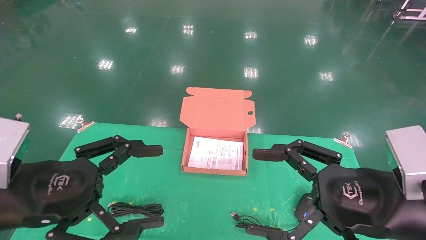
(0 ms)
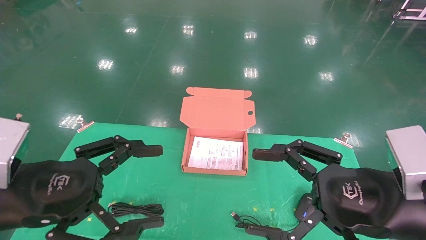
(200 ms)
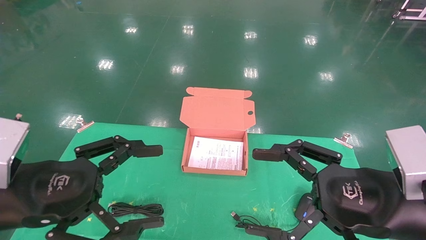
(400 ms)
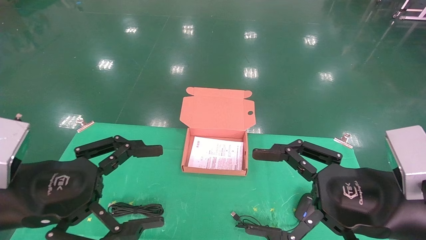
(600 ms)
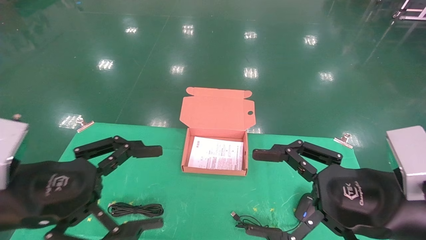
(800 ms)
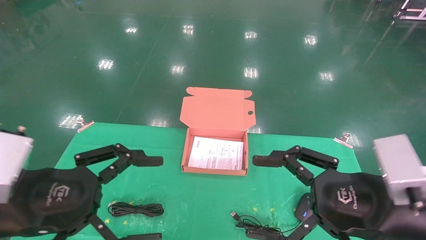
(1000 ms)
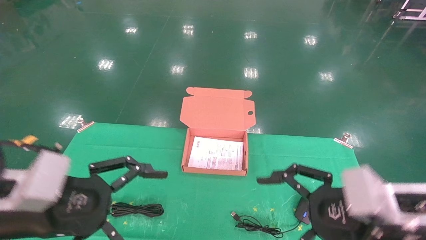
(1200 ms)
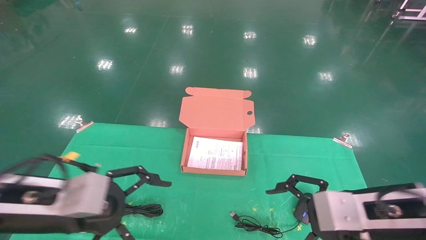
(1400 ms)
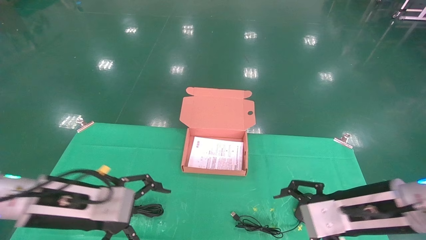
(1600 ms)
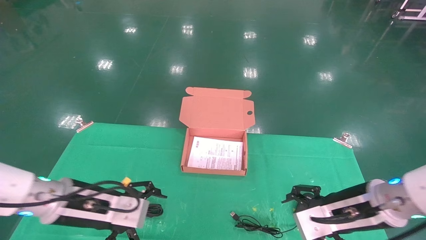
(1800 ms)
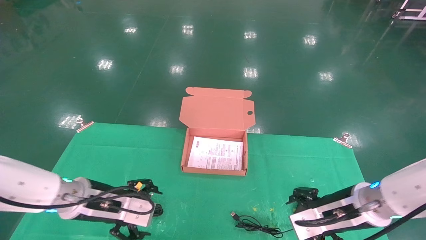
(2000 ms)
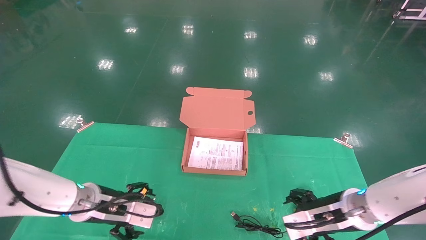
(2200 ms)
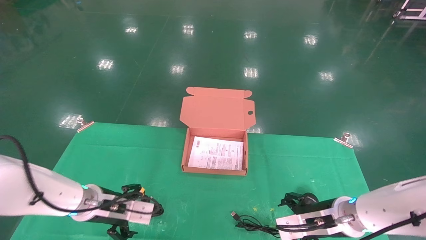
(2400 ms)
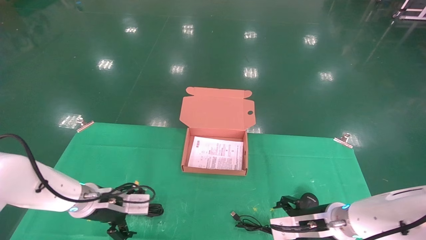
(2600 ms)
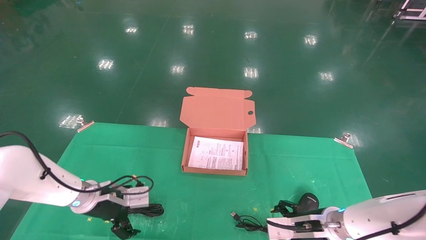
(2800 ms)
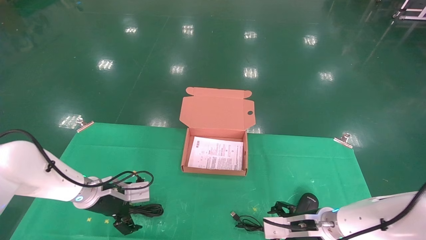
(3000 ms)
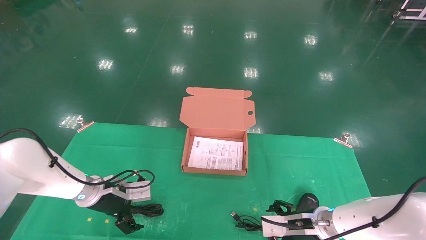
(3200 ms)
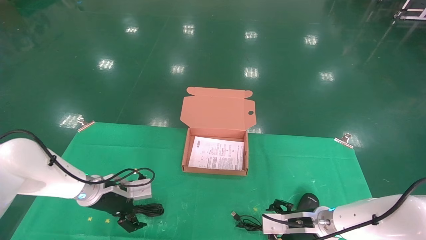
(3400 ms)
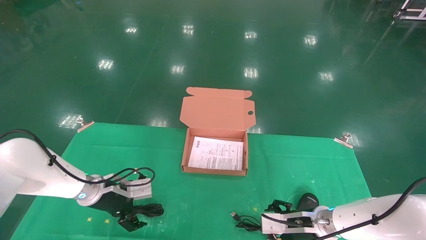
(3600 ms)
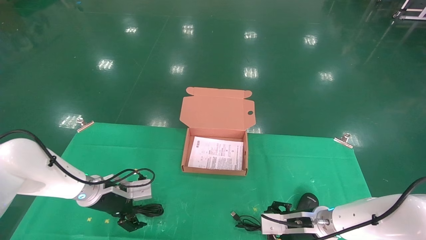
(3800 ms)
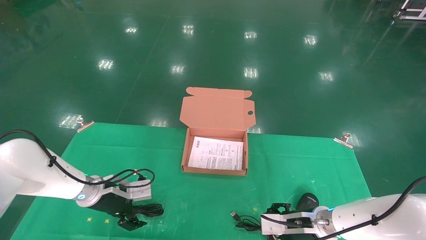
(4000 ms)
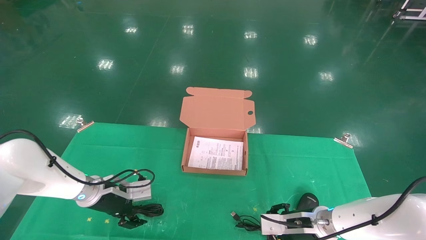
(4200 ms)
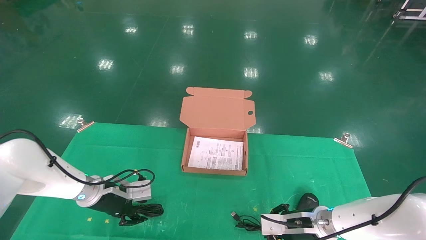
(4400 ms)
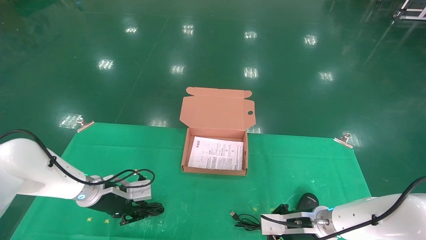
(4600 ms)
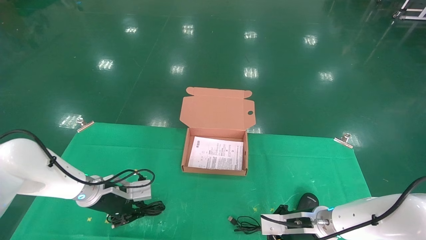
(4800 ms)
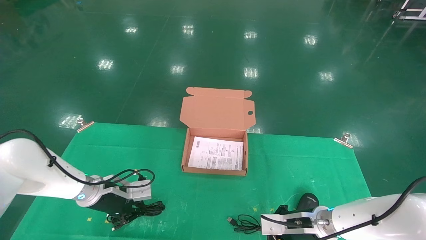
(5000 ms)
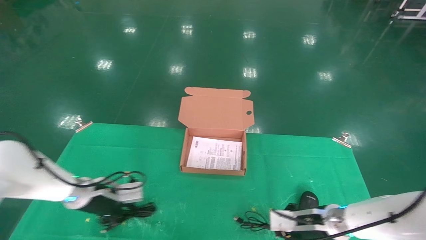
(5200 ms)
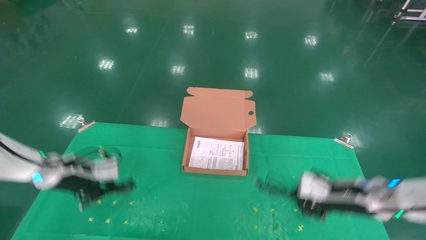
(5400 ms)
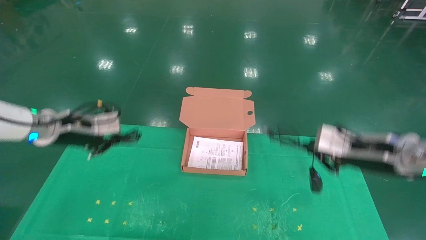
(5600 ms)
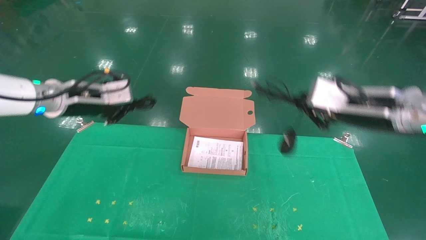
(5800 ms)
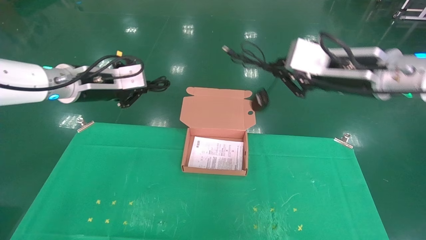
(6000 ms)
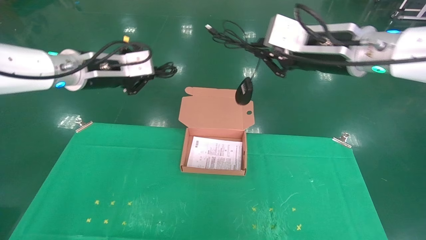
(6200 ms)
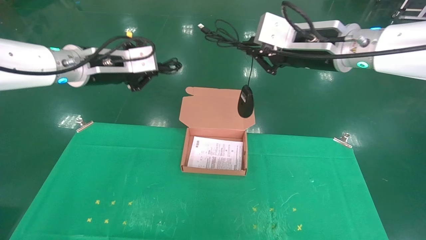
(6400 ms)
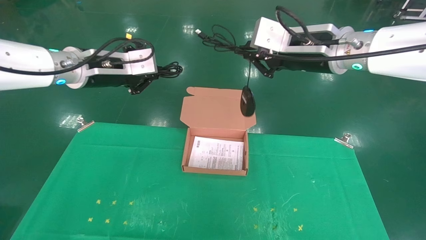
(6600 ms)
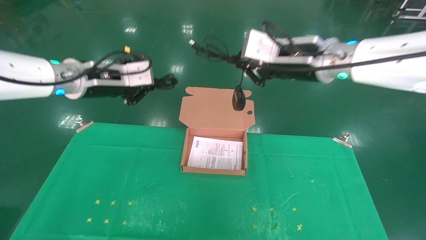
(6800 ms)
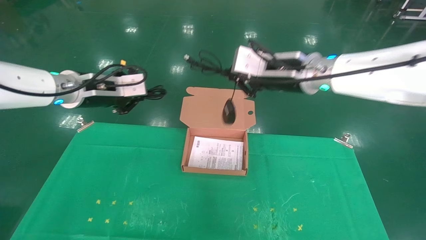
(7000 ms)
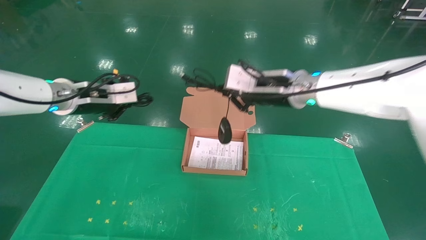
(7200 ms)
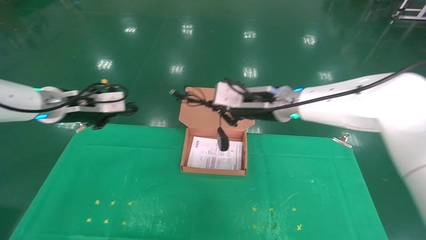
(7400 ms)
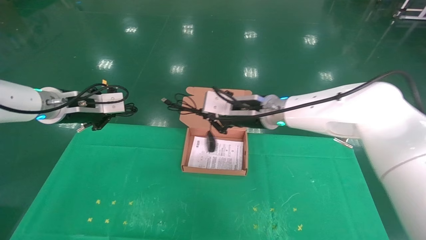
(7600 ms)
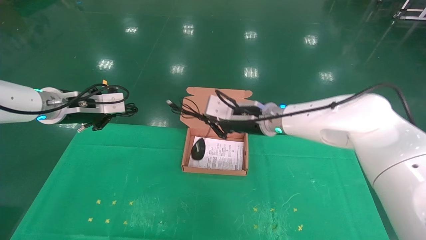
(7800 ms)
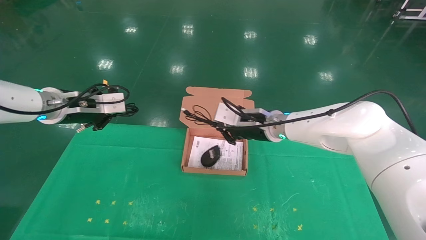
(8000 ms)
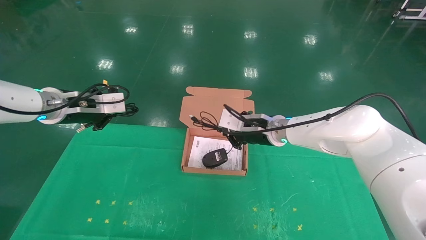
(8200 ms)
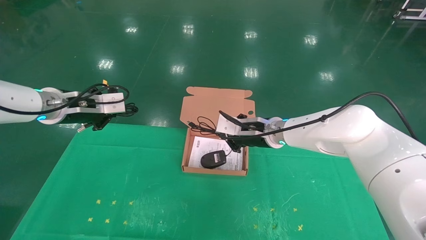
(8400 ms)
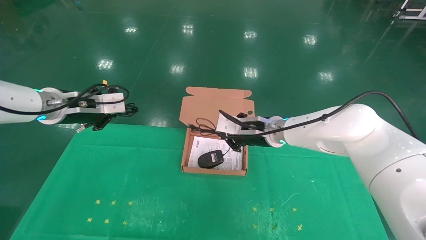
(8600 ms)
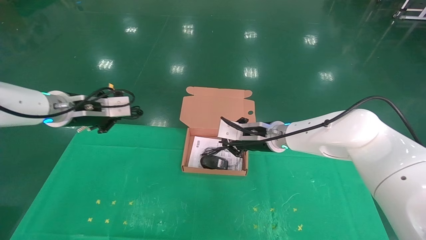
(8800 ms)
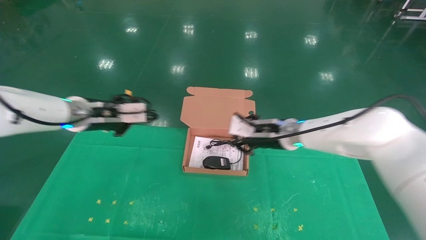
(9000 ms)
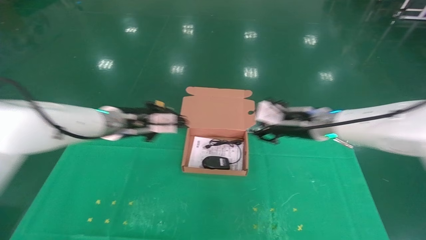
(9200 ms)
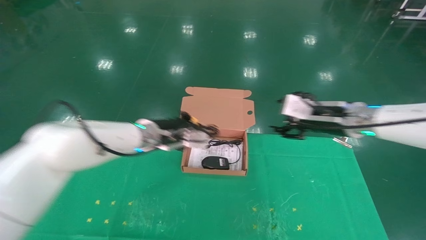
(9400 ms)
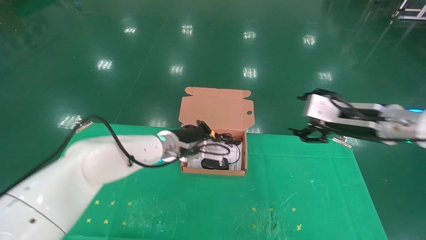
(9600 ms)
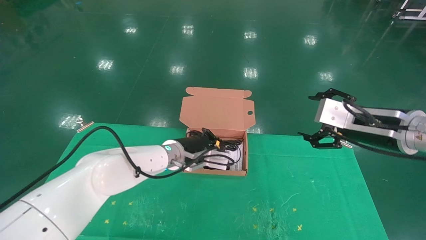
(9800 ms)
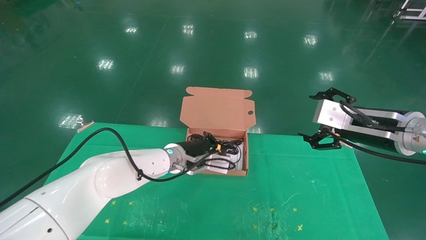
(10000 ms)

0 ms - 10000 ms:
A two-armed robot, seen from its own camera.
Task of the whole recording: grasp data cable left put into box grasp mouse right put into box.
Step, 1000 ms - 5800 ms: Grab and pick up both the mouse and power cord from the accessory packaging area at the same time.
0 ms - 1400 ms: The right gripper changes place by about 5 cm. Meanwhile the left gripper changes place by about 5 cm.
1400 ms - 2800 ms: The left gripper shifts roughly 20 cm forward and downward, while the right gripper goes approximately 20 cm downward and forward.
2800 ms - 4200 ms: The grippers make only small movements.
4200 ms - 5800 ms: Both grippers move upward, about 25 cm. The left gripper closes, while the right gripper closes its fingers.
5800 ms - 7200 ms: The right gripper is displaced to the left and forward by about 15 cm.
7200 ms - 8600 ms: The right gripper is displaced downward and forward by some 10 cm.
8600 ms - 10000 ms: The left gripper is displaced to the right and downward by roughly 25 cm, while the right gripper heads to the right and backward, covering roughly 20 cm, and opens up.

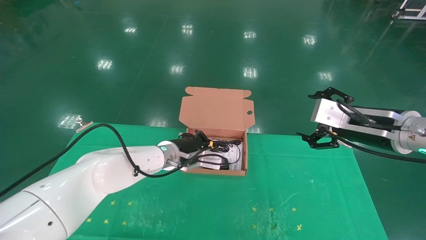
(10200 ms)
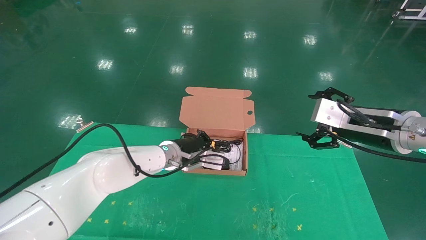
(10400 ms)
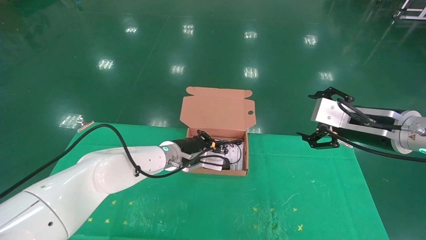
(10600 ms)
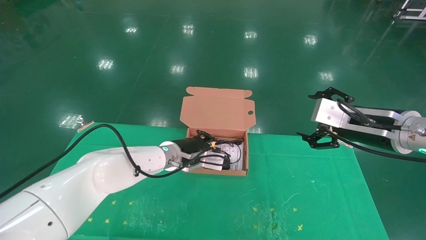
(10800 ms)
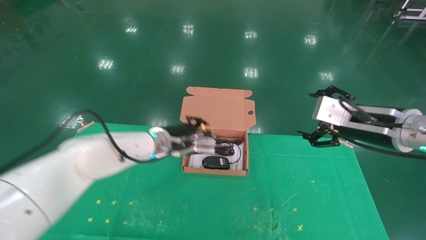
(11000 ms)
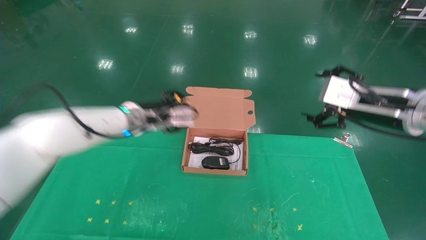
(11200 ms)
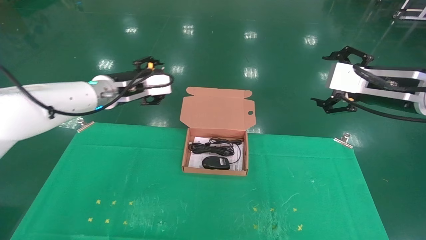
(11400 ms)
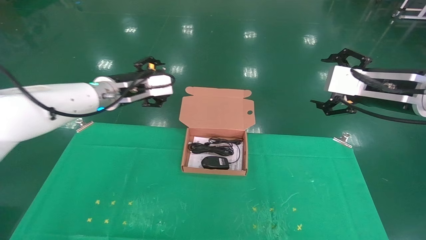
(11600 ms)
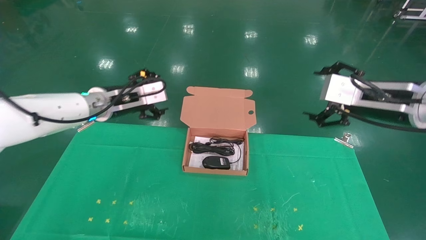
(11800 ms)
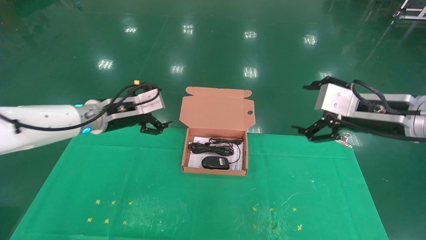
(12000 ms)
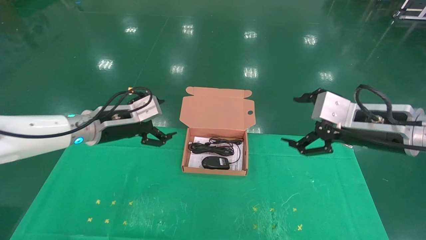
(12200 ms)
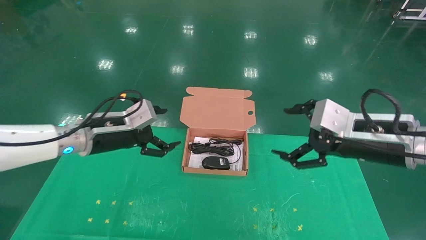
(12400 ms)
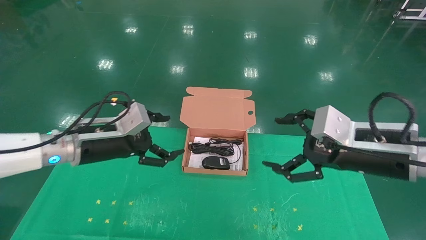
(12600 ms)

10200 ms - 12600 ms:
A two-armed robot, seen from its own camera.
Task of the whole recording: grasp data cable left put into box grasp mouse right put into box.
10200 ms - 11400 ms: The left gripper moves upward and to the left, roughly 20 cm, and opens. Meanwhile the right gripper shifts approximately 5 cm upward.
11400 ms - 12600 ms: The right gripper heads downward, covering roughly 5 cm, while the left gripper shifts about 10 cm backward and downward.

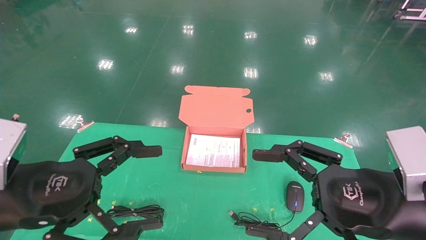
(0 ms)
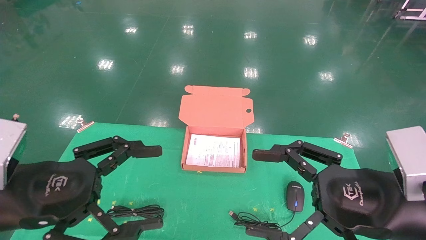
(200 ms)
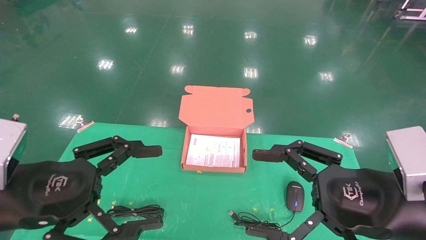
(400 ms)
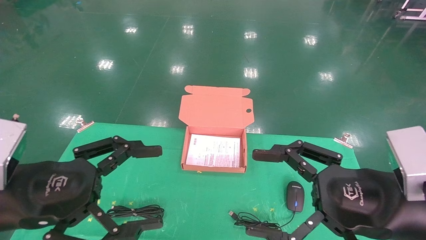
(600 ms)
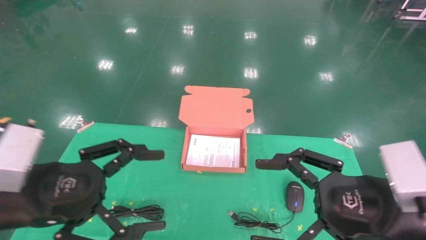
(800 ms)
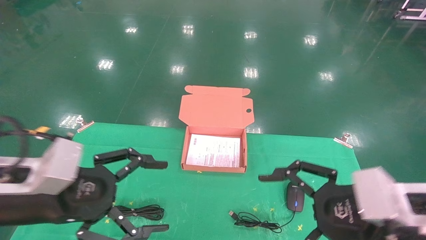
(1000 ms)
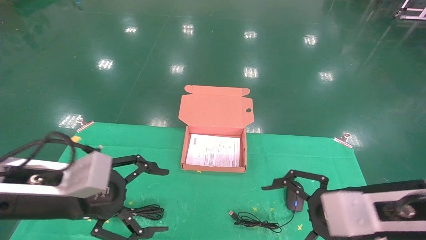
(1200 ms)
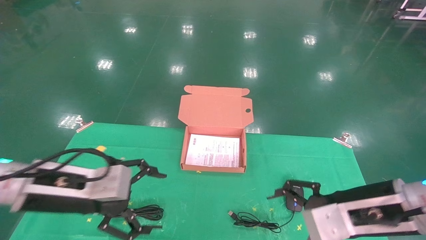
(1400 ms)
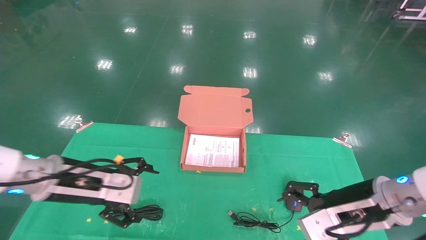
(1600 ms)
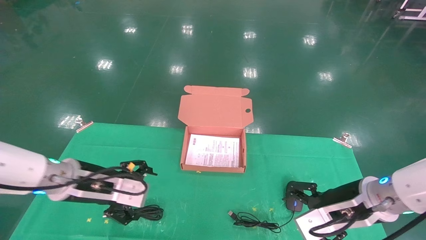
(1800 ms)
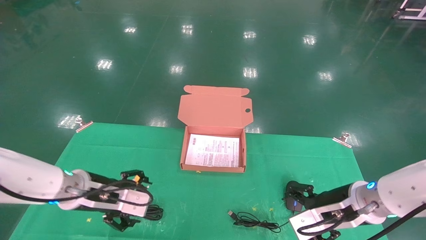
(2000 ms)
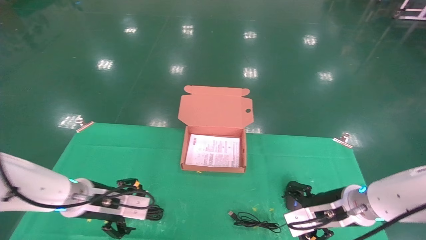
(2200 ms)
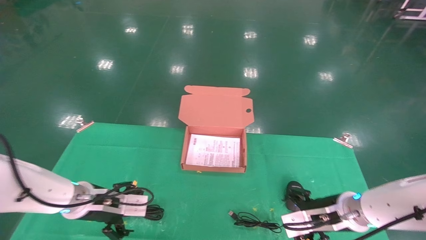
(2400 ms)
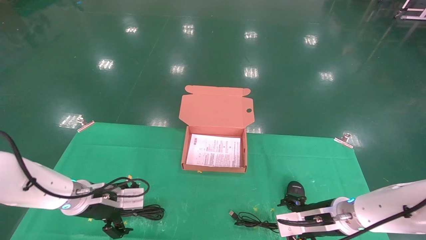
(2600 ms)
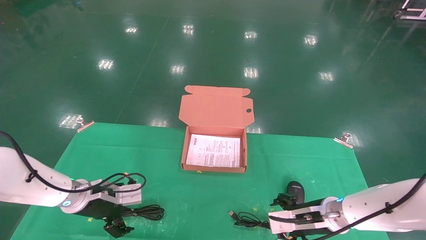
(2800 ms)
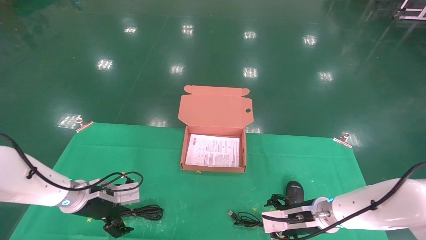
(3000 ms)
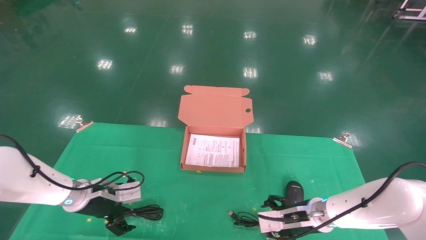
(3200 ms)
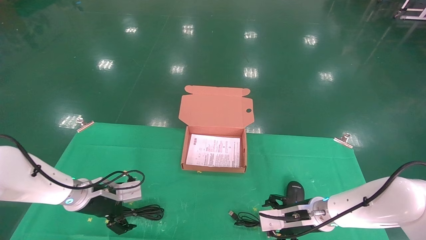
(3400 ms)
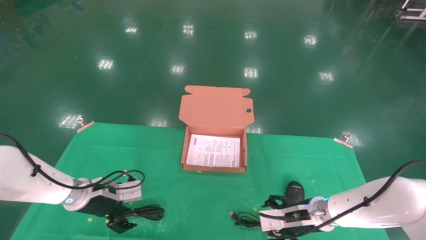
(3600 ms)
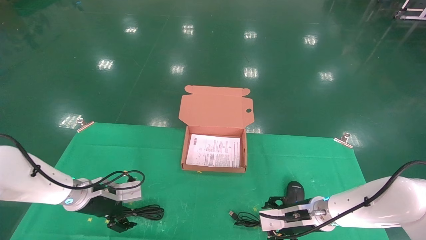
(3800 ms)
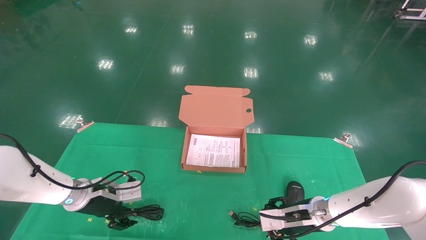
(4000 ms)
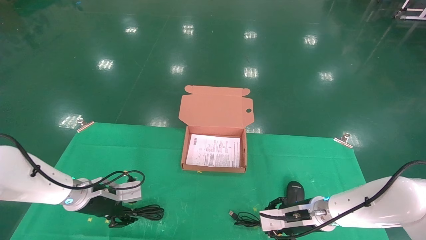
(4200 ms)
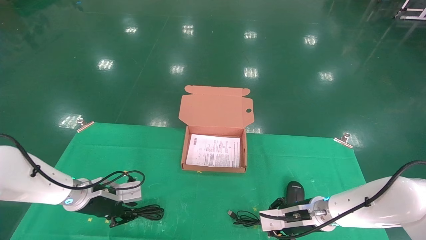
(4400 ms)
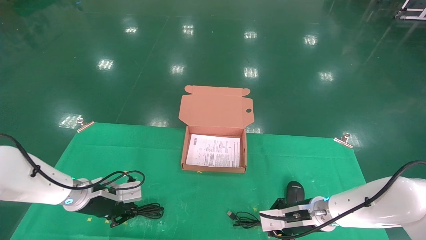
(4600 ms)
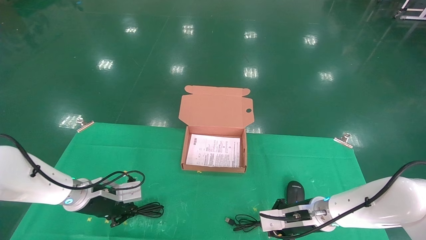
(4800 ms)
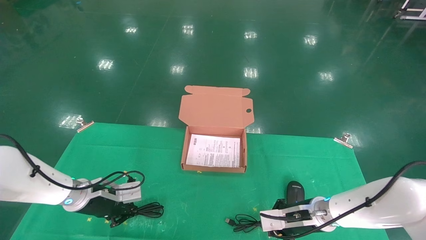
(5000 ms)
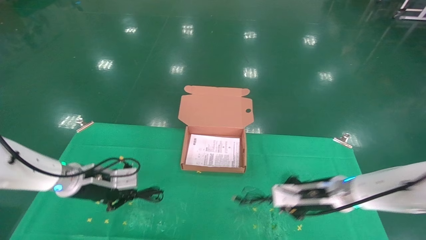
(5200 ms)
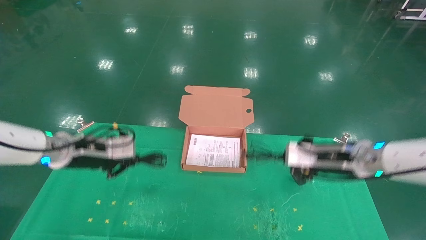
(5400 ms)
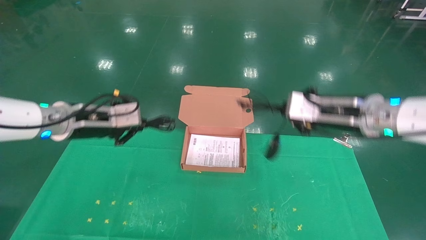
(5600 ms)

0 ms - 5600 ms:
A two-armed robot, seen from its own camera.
Task of the whole recording: grasp data cable left put into box grasp mouse right put into box.
Step, 1000 ms - 4800 ms: Grab and pick up both the mouse and power cord from the accessory packaging area at the same time.
0 ms - 1400 ms: Both grippers travel together forward, some 10 cm.
1400 ms - 2800 ms: The left gripper is displaced forward and downward by about 15 cm; the right gripper is displaced downward and forward by roughly 15 cm.
2800 ms - 4200 ms: The right gripper closes up. The left gripper closes.
4200 ms - 5600 ms: The two grippers go some 20 cm upward. The right gripper closes up. Meanwhile the left gripper closes.
